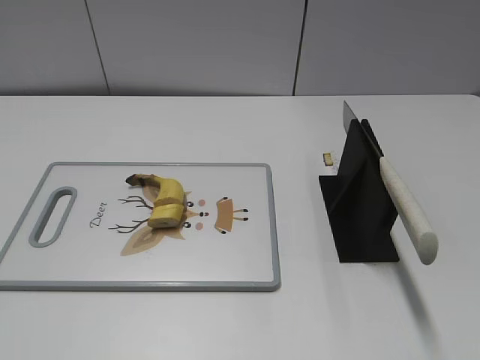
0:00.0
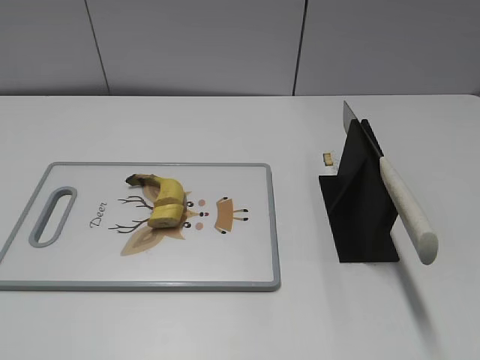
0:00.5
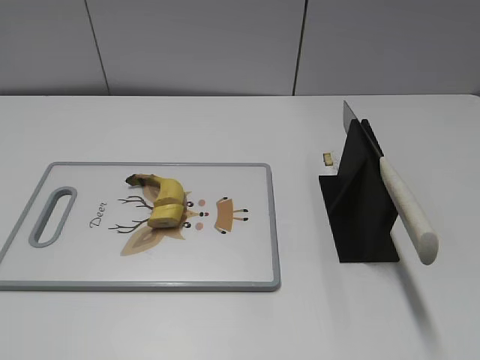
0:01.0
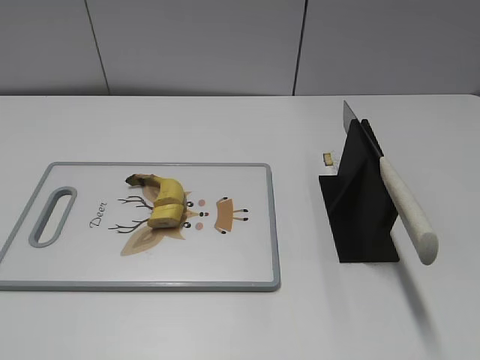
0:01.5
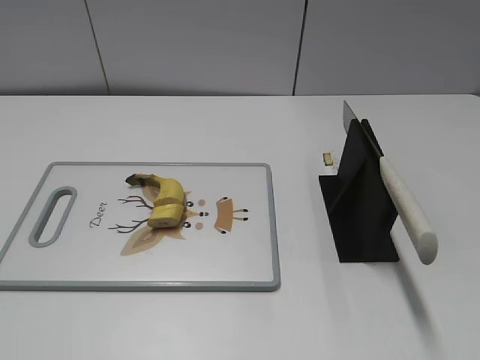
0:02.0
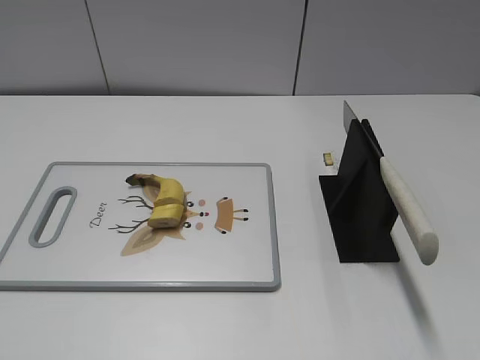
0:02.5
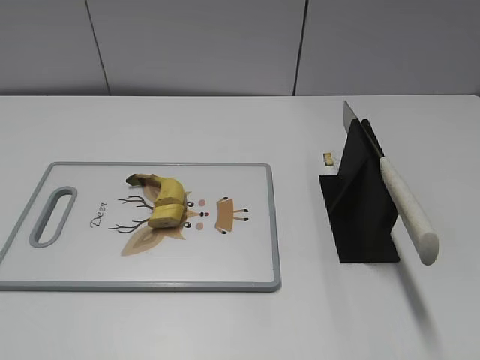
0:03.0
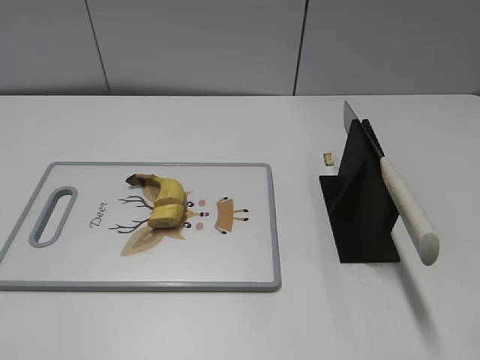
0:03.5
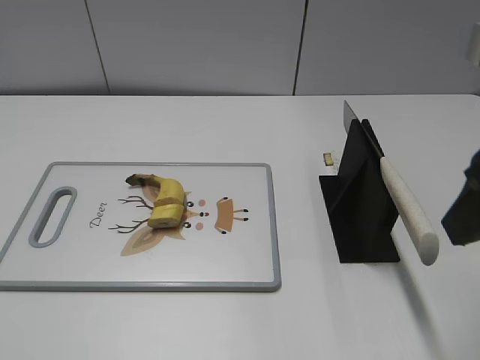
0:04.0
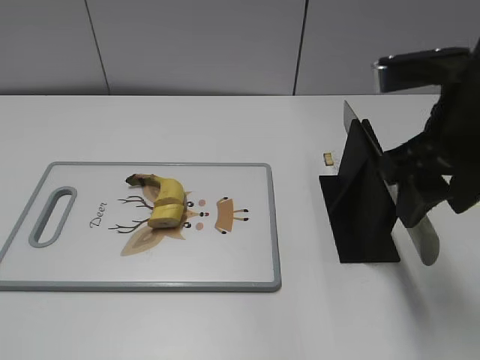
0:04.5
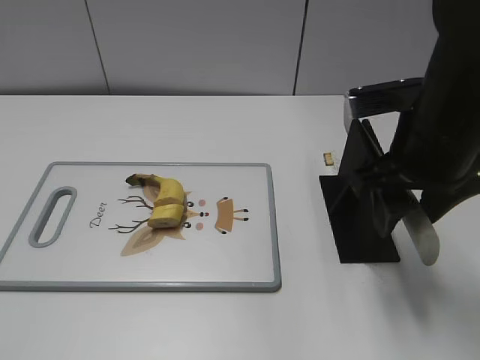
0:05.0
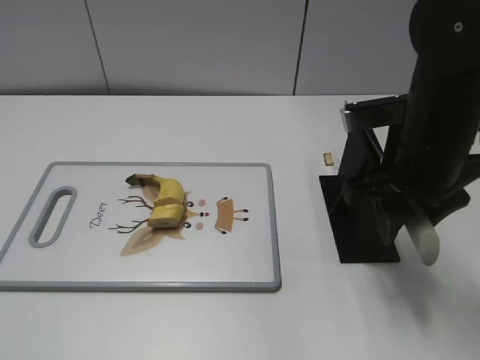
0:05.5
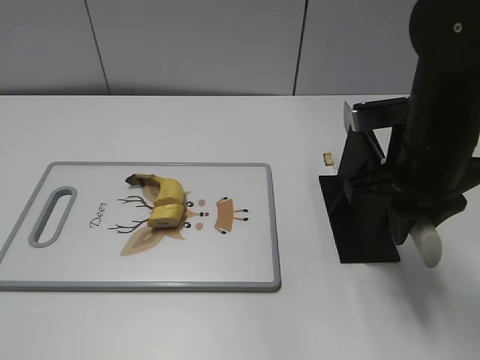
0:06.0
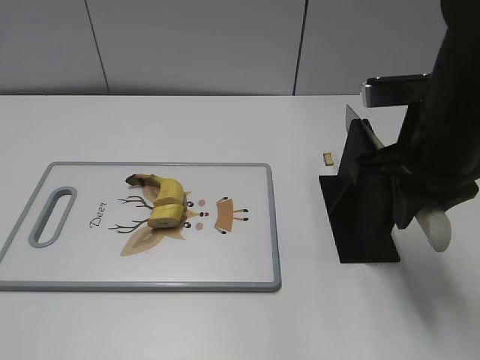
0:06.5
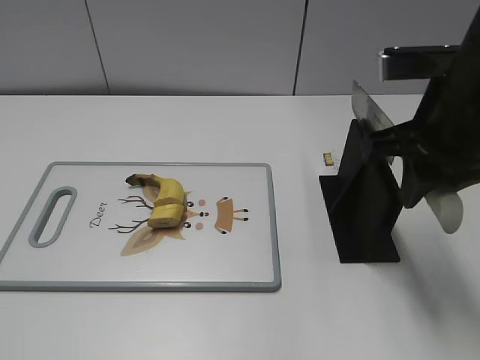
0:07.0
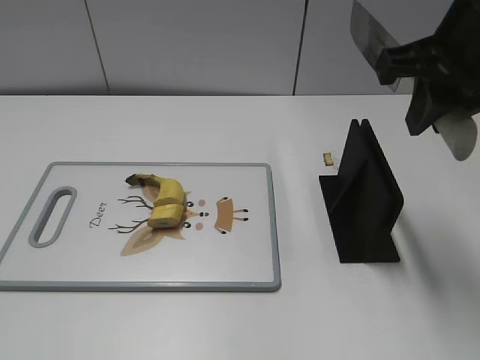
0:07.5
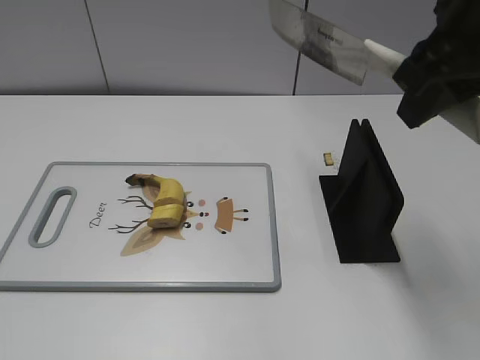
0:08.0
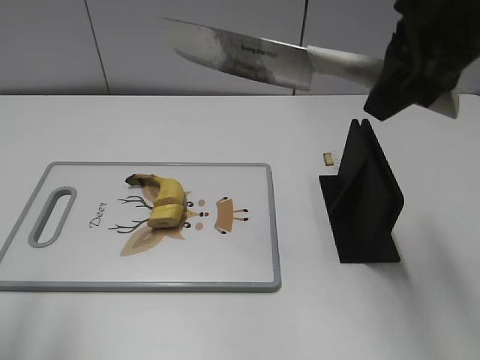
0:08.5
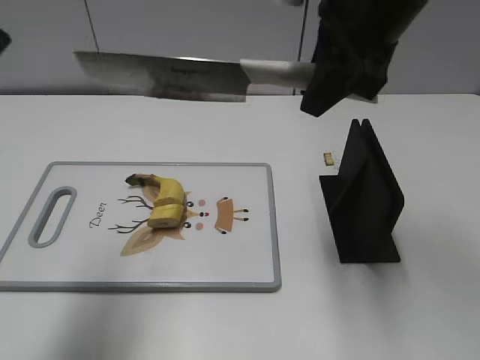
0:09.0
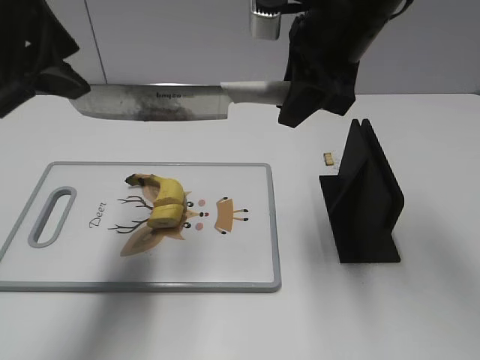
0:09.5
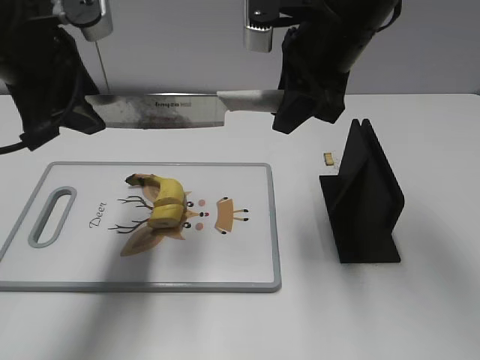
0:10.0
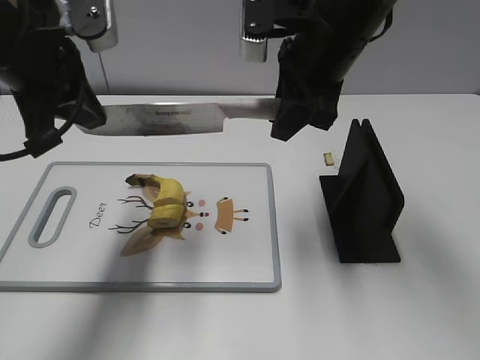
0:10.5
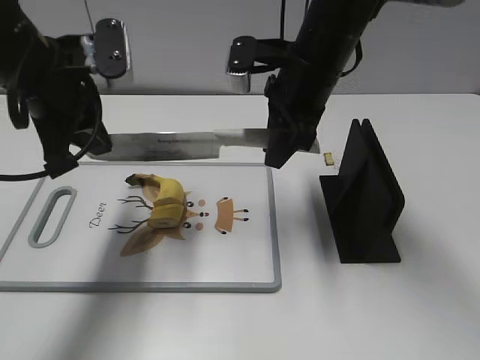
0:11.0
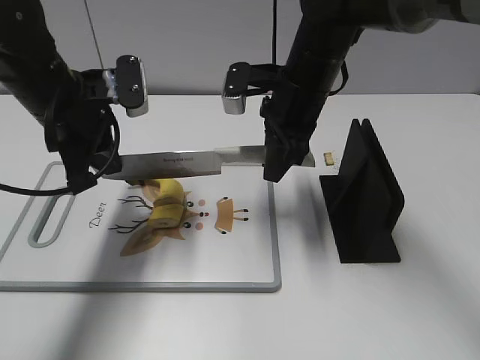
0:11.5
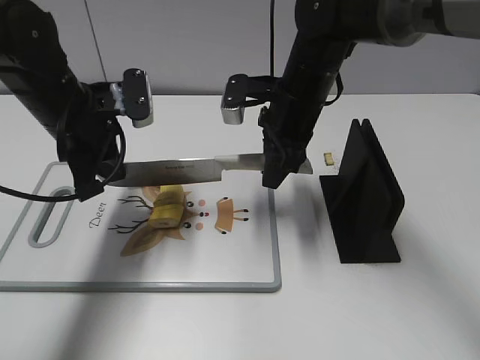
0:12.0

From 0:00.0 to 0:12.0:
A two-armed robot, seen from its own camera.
Task of the whole recording: cut banana.
Step, from 0:00.0 to 0:07.0: Grab the knife handle with your right hand.
From 0:02.0 to 0:04.0: The right gripper heads forward and to the left, covering roughly 20 cm.
From 0:04.0 to 0:06.0: The right gripper travels downward and forward by approximately 15 cm, and closes its fingers.
From 0:06.0 to 0:08.0: The right gripper goes roughly 15 cm upward.
From 0:08.0 to 0:10.0: The left gripper moves forward and to the right, approximately 30 cm. The right gripper moves forward, to the left and downward, some 15 cm.
From 0:10.0 to 0:12.0: The two grippers go roughly 10 cm downward. The left gripper closes its fingers.

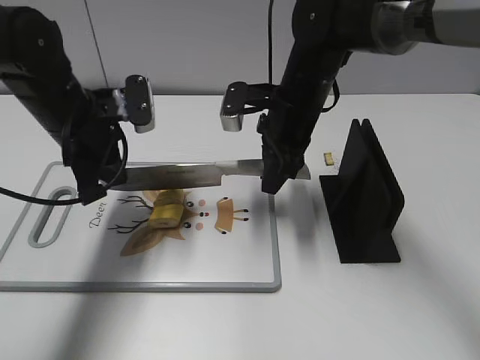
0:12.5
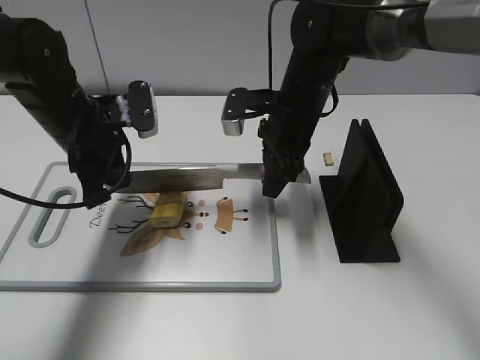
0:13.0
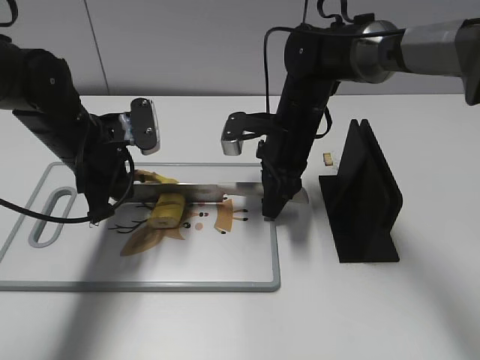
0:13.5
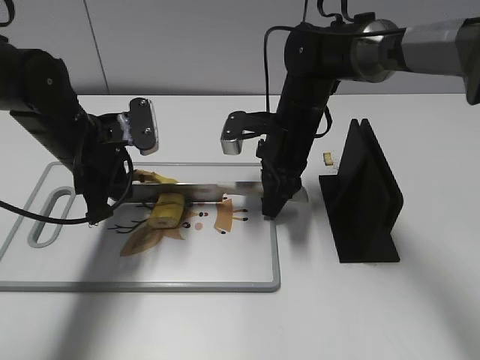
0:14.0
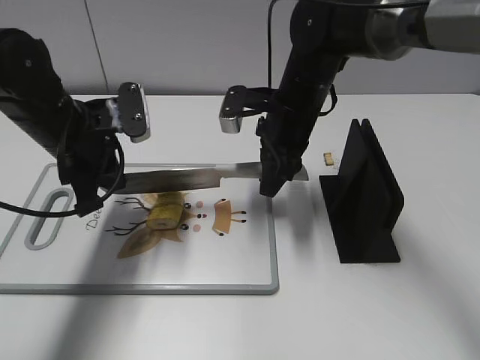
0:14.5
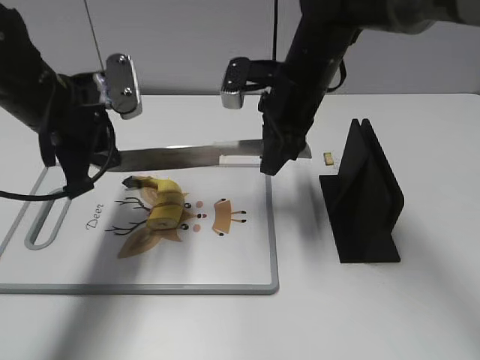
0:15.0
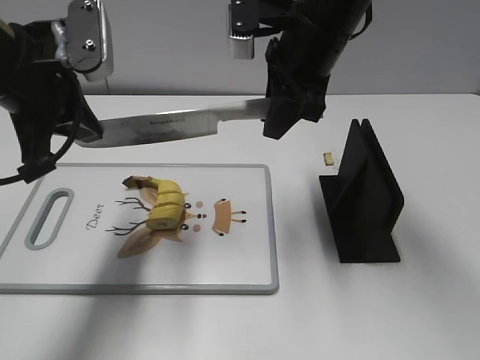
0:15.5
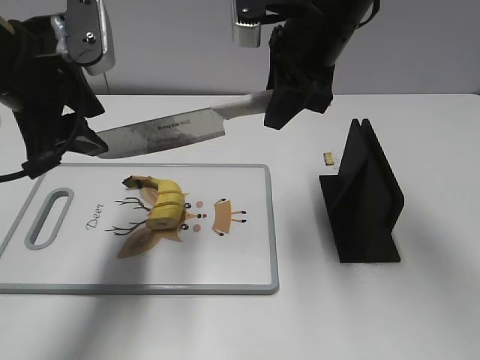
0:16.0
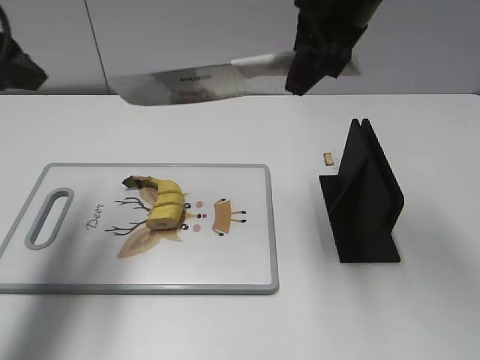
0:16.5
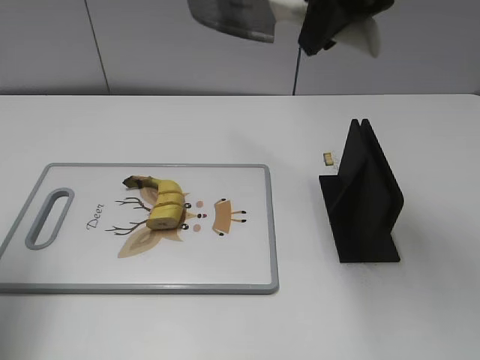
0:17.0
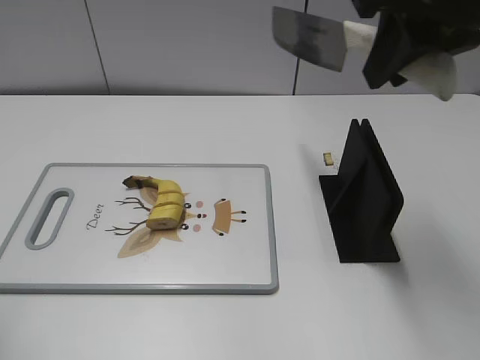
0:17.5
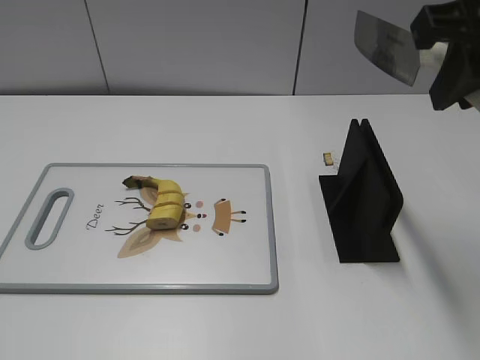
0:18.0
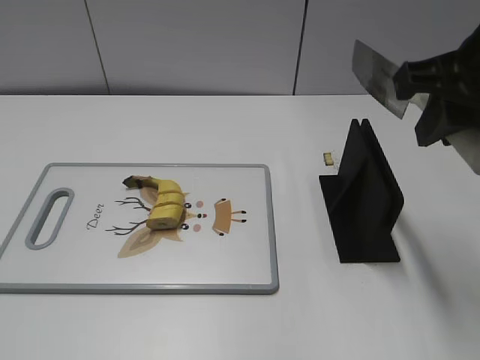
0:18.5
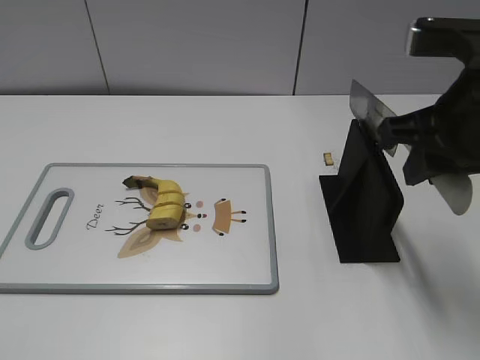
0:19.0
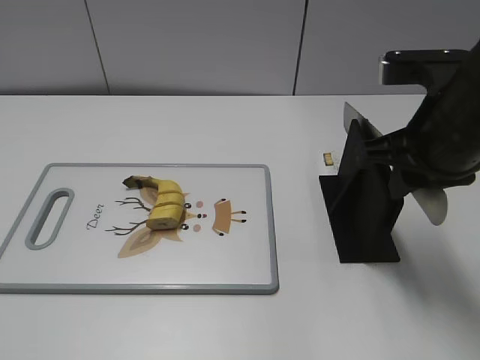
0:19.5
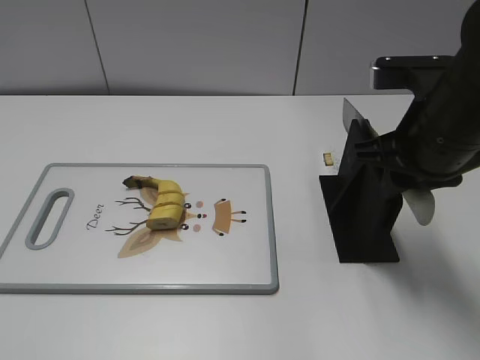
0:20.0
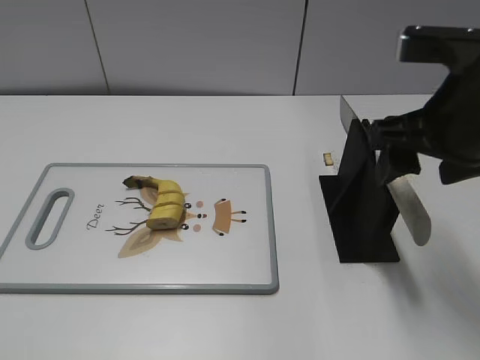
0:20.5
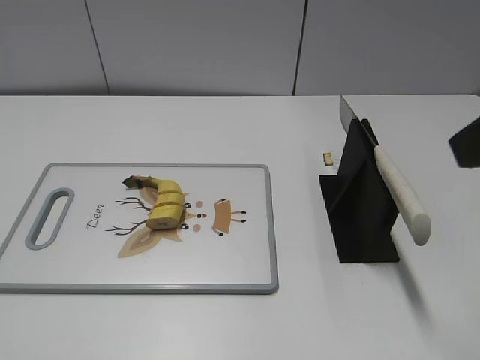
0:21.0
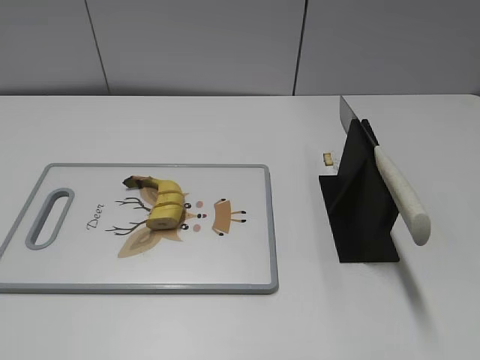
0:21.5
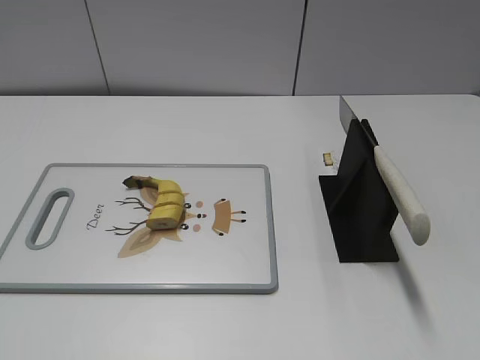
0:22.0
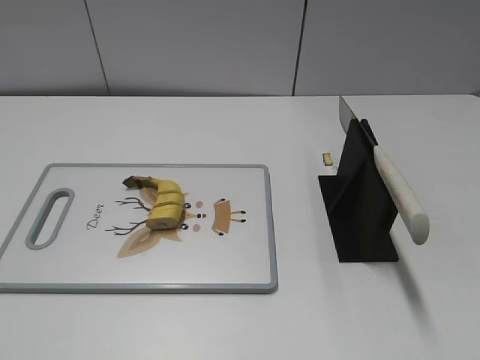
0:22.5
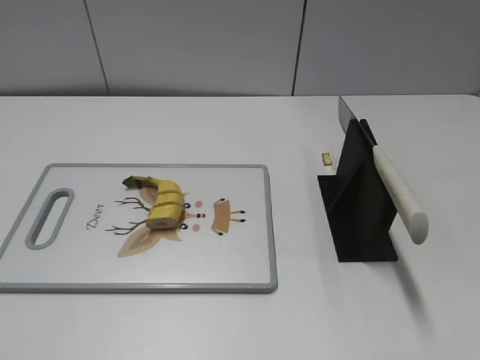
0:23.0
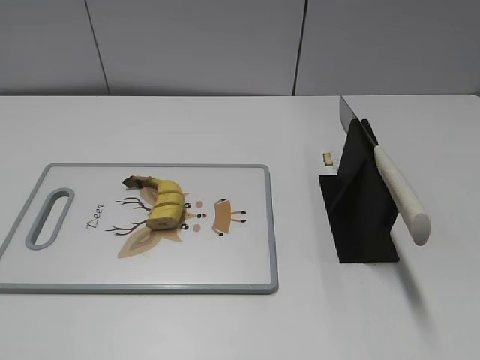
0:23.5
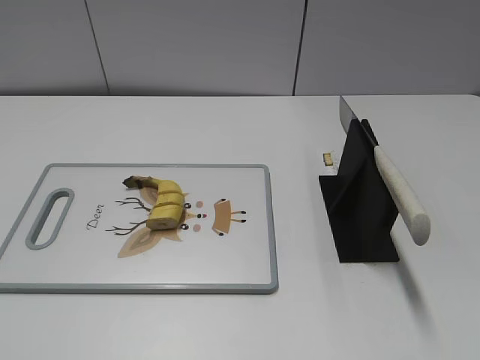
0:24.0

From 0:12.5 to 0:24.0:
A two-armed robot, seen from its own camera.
Task of the whole recording: cut banana.
Step, from 0:13.0 to 0:17.0: Cut the banana with your right hand.
Step, from 0:17.5 to 0:19.5: Lift the knife with your right hand.
Step, from 0:20.0 to 0:24.0: Place the knife on the storage rack with your right hand.
From 0:12.5 to 0:14.5: There are only small adjustments of the grippers.
From 0:14.5 to 0:16.5: The left gripper goes about 15 cm upward and to the left, and opens up. Meanwhile the right gripper moves upward, roughly 20 cm.
From 0:16.5 to 0:18.5: The left gripper goes roughly 30 cm backward, while the right gripper moves backward and to the right, roughly 15 cm.
From 0:18.5 to 0:20.0: The right gripper is displaced downward by some 10 cm.
From 0:20.0 to 0:22.0: The right gripper is displaced backward and to the right by about 25 cm, and opens up.
